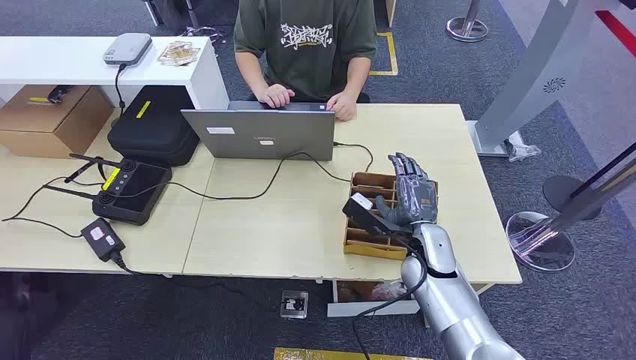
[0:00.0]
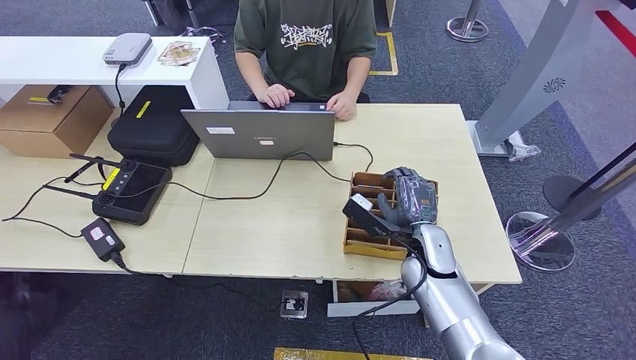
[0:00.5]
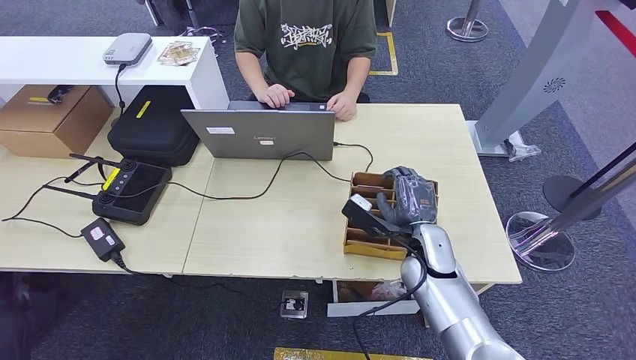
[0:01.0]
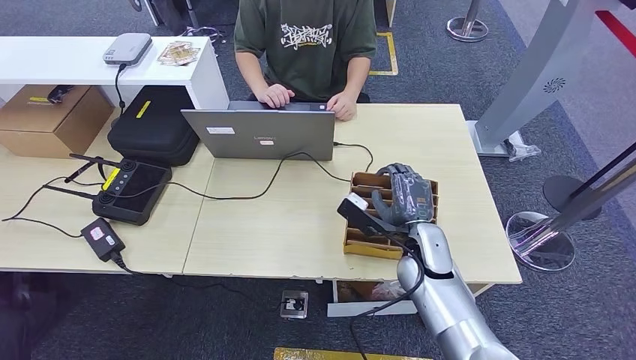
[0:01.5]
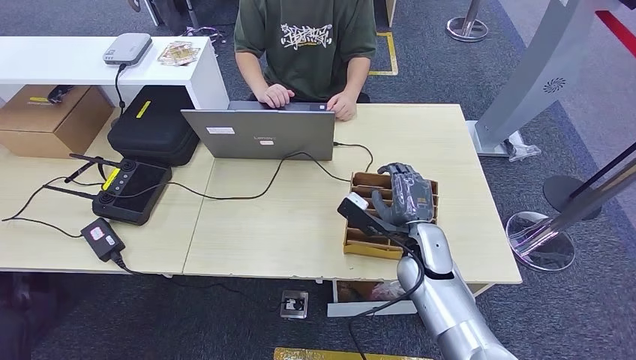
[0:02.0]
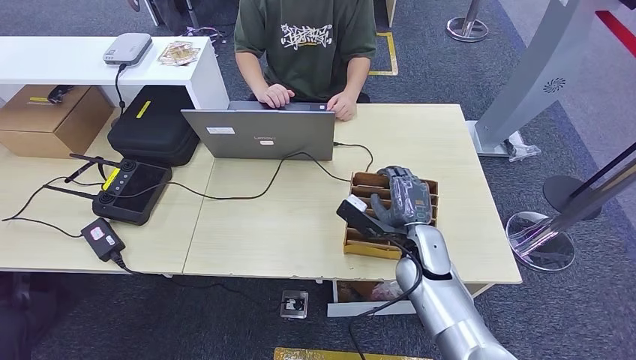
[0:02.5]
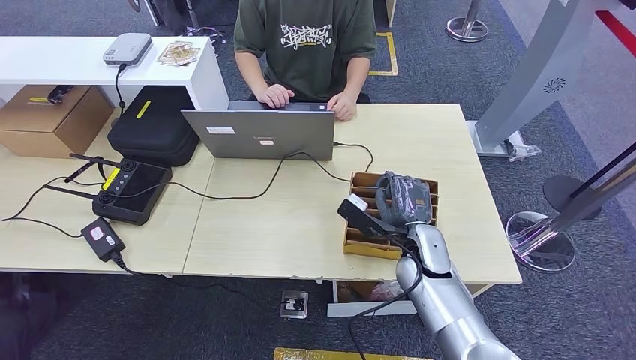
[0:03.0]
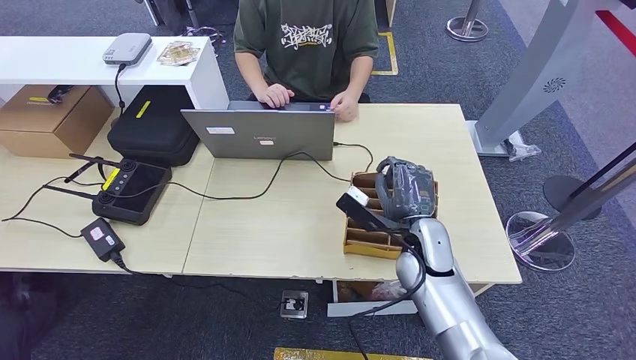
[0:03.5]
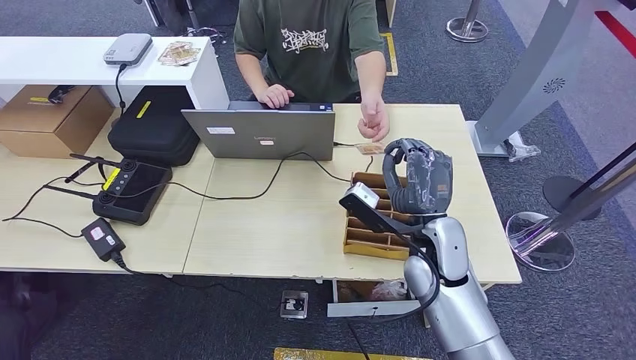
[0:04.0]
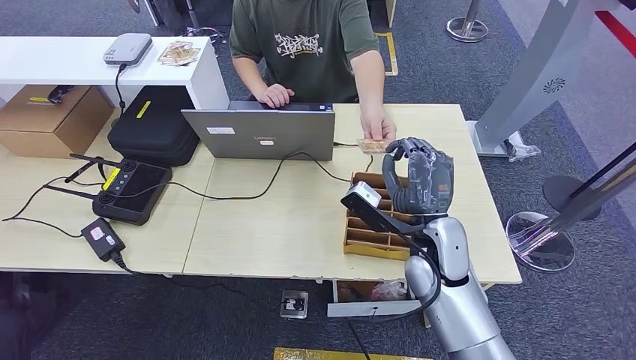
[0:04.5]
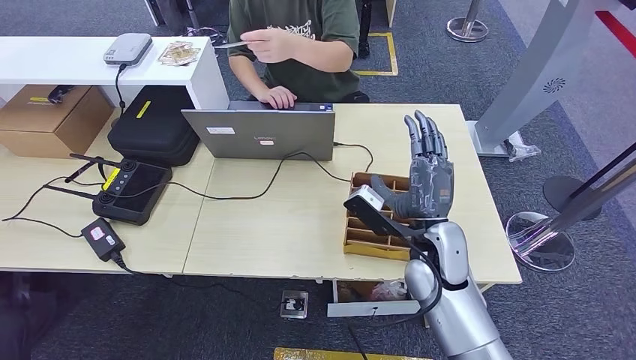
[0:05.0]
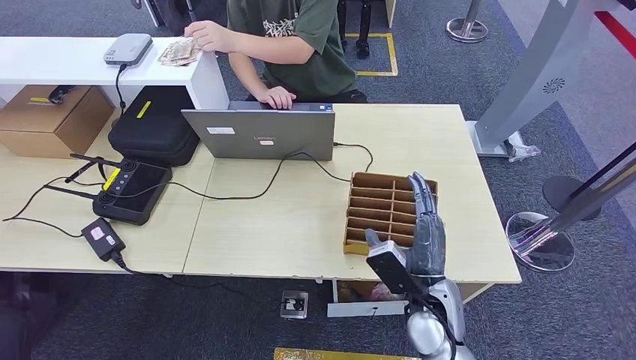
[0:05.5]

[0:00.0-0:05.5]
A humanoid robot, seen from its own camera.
Step, 0:00.0 to 0:03.5: Pick up the room card from the card holder.
Step, 0:04.0 to 0:05.5: Hand the room card to the target.
0:02.0 to 0:03.5: The hands move only a little.
0:03.5 to 0:05.5: The right hand is displaced backward by some 10 cm.
